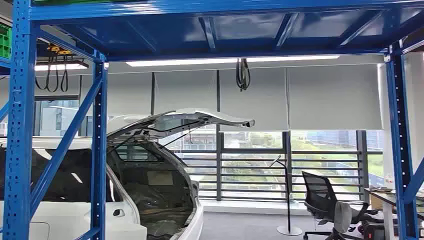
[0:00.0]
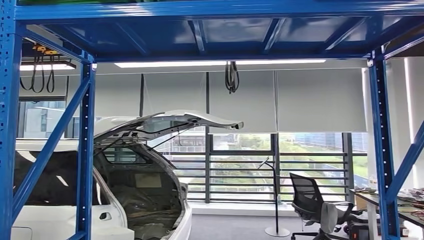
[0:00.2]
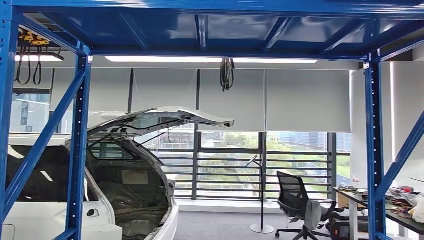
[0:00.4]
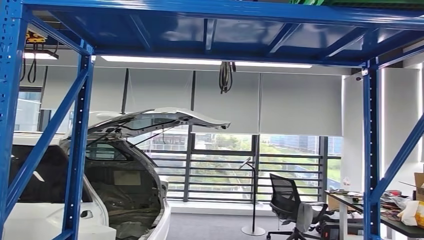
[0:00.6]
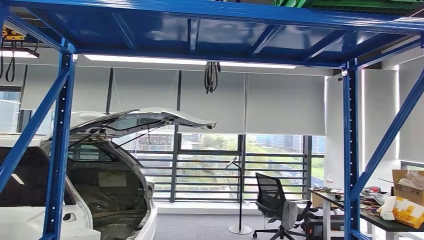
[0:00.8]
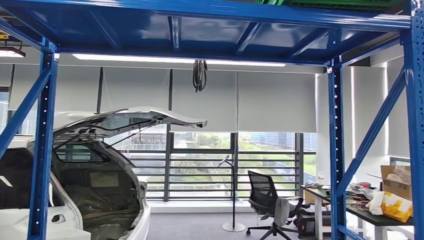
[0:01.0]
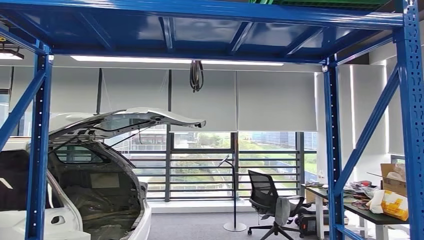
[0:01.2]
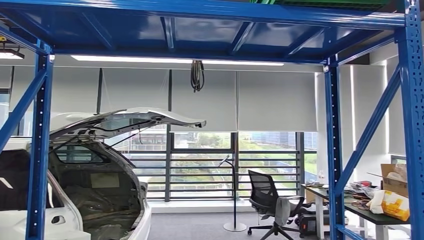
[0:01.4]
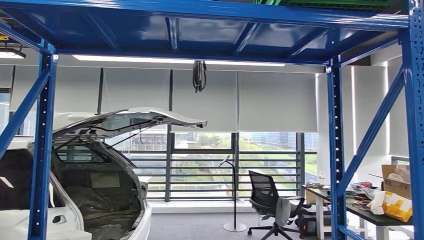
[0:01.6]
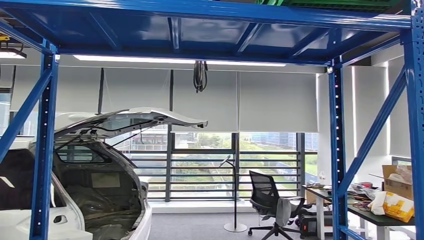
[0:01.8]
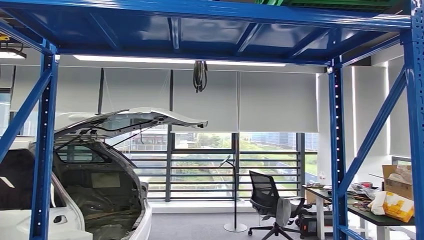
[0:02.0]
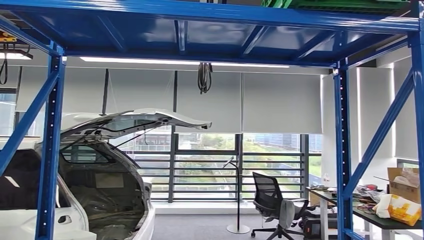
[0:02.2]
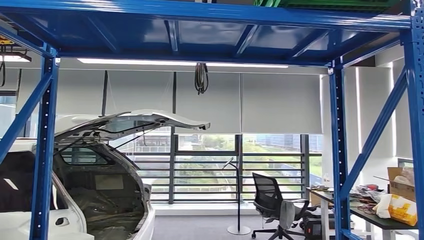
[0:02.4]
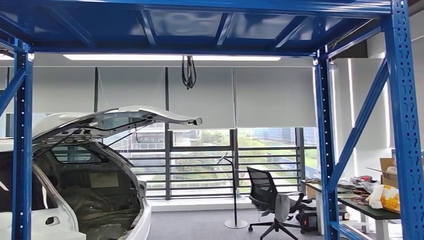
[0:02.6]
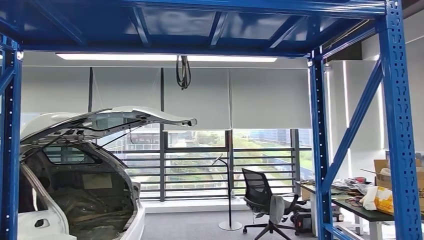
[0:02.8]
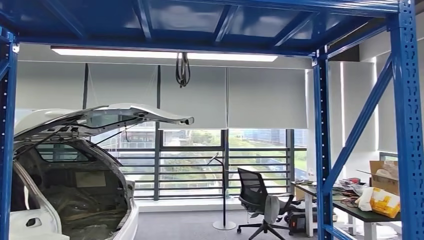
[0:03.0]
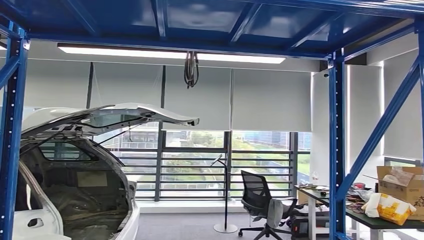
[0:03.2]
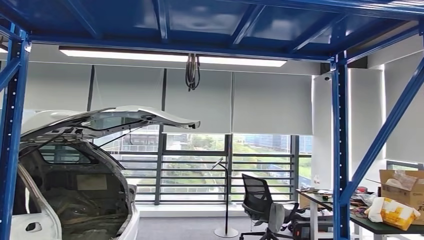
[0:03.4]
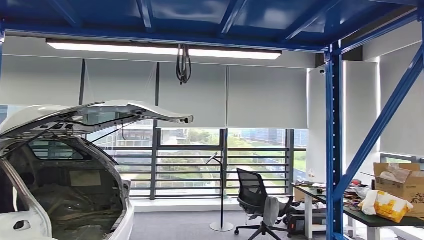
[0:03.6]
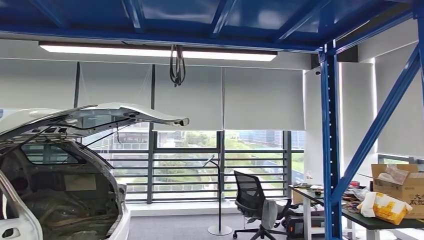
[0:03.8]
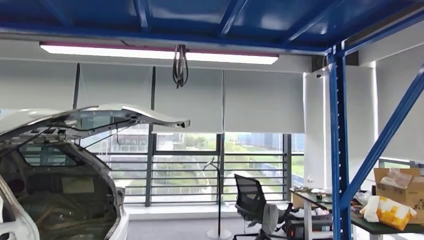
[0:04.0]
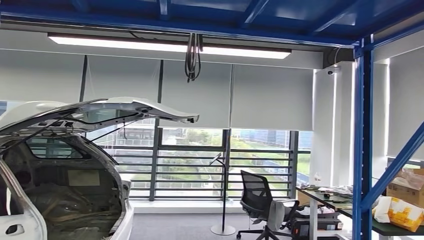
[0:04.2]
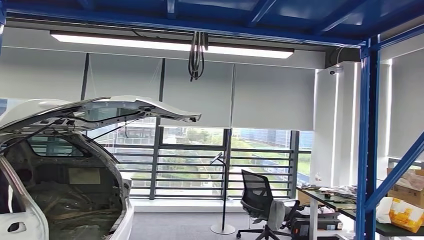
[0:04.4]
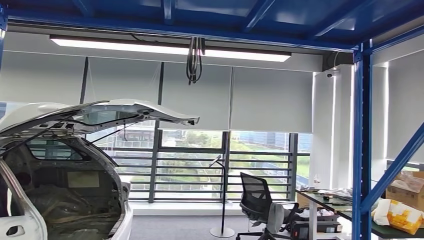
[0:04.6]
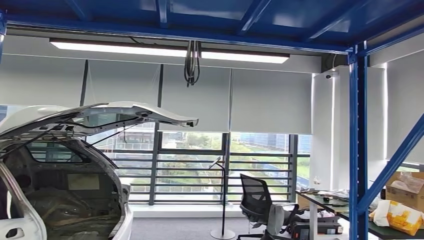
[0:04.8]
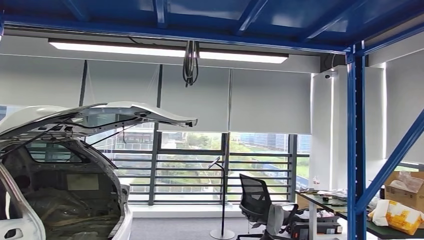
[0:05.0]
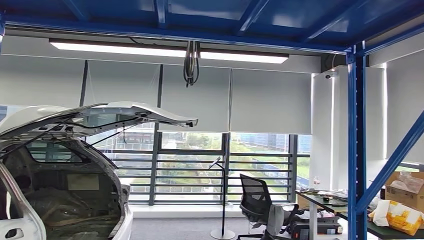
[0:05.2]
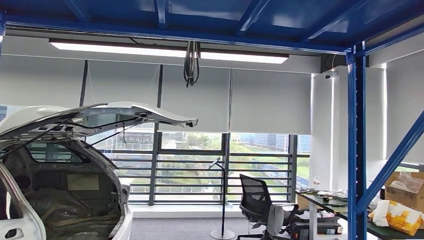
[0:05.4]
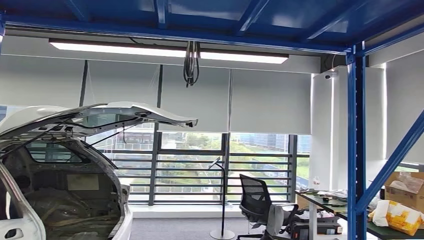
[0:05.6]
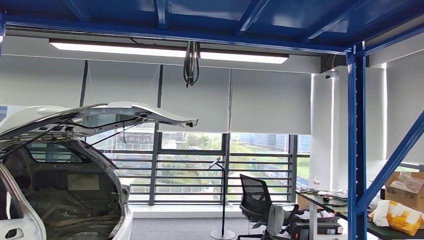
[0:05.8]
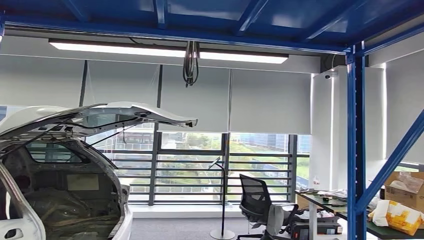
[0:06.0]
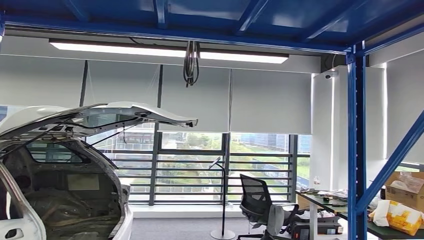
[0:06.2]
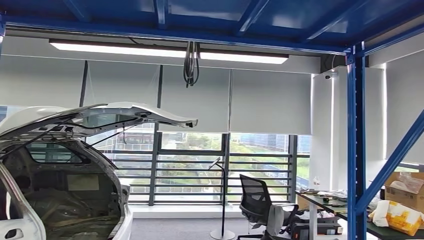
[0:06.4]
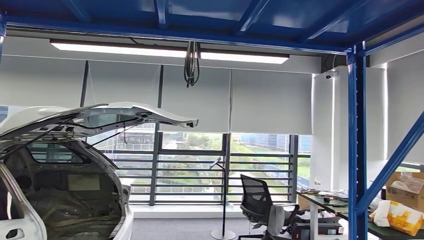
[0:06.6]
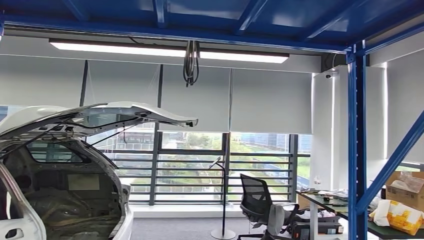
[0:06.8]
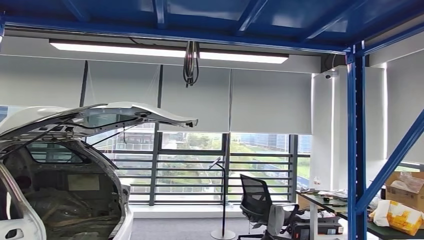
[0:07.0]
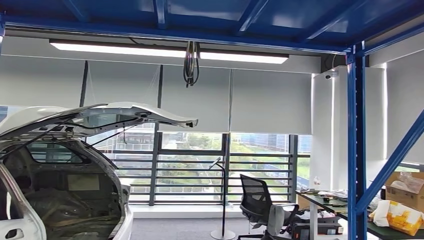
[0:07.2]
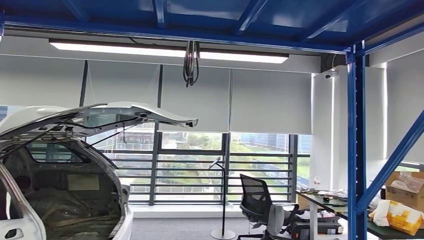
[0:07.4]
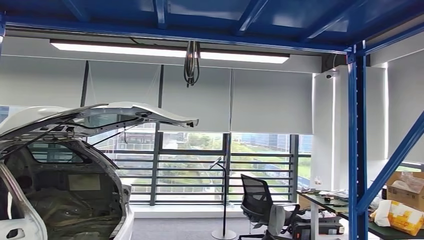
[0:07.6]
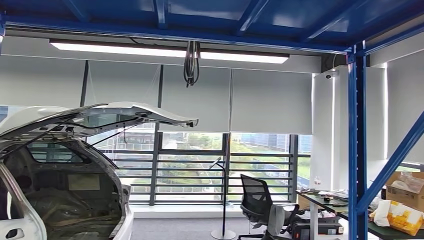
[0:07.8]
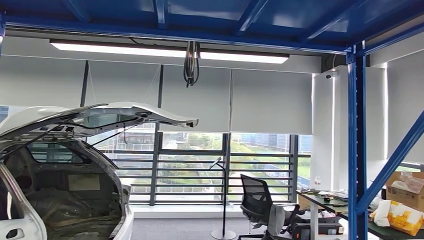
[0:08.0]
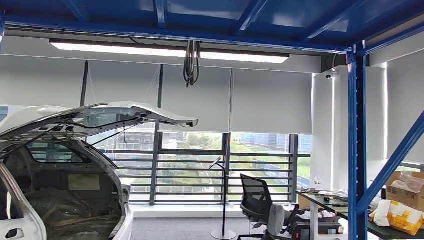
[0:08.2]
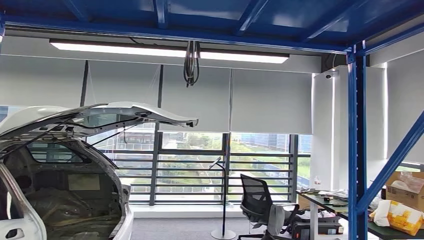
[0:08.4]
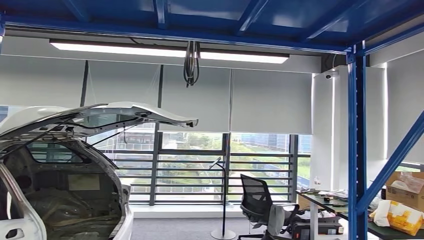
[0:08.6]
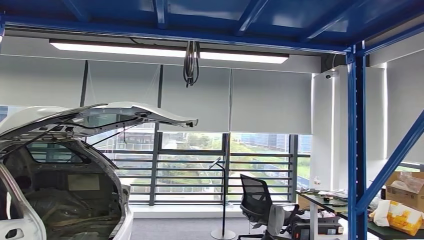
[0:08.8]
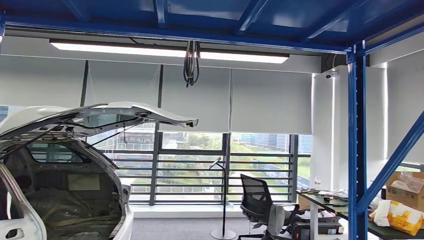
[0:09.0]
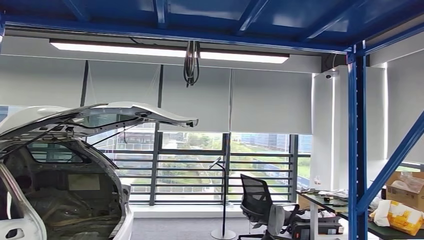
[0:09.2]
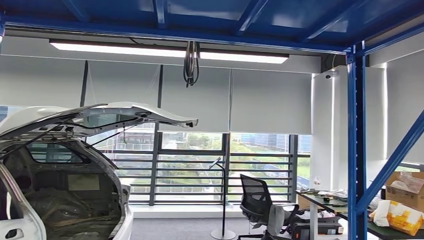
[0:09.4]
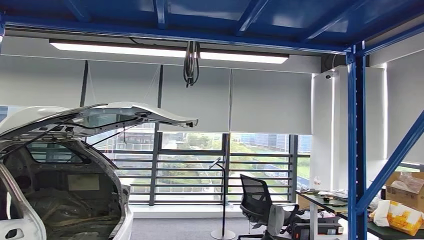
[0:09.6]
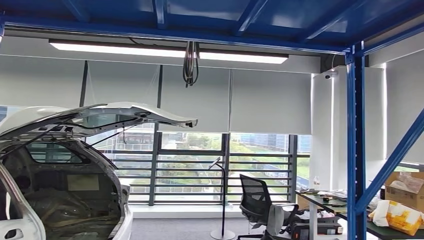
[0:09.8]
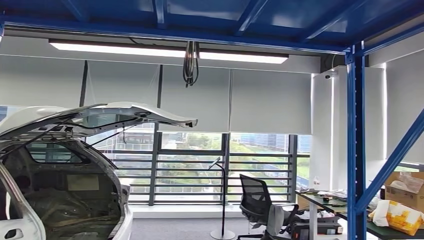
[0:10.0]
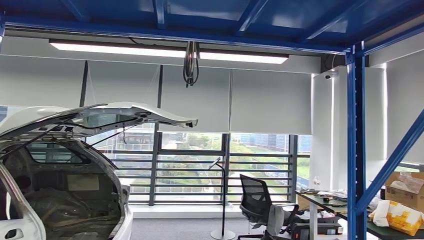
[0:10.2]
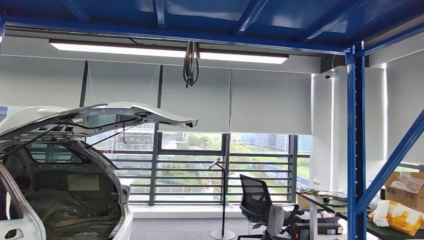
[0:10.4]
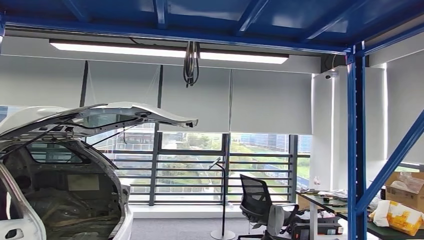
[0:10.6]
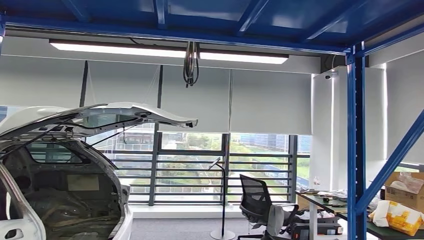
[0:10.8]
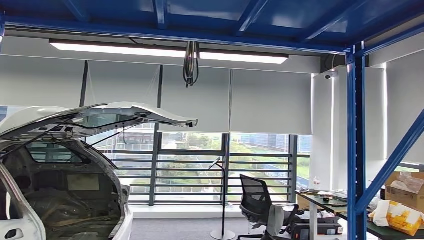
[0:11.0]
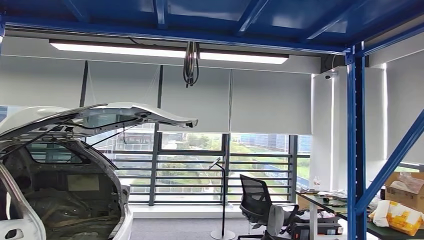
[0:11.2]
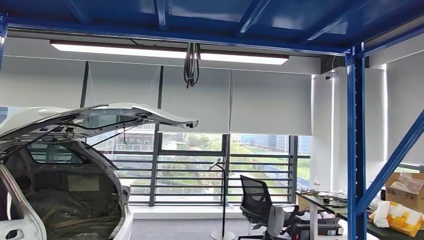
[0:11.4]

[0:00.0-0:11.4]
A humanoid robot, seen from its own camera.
Step, 0:00.0 to 0:11.2: Pick up the small parts from the shelf.
0:05.6 to 0:07.2: The right hand shifts about 15 cm forward.
0:07.2 to 0:08.6: The right hand travels to the left by approximately 10 cm.
0:08.6 to 0:10.0: The right hand heads to the left, covering some 10 cm.
0:10.0 to 0:11.4: The right hand heads to the left, covering about 10 cm.

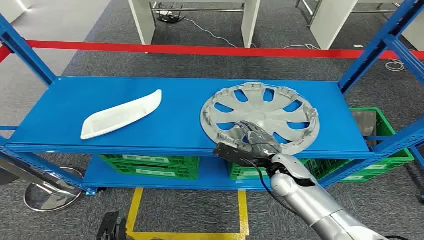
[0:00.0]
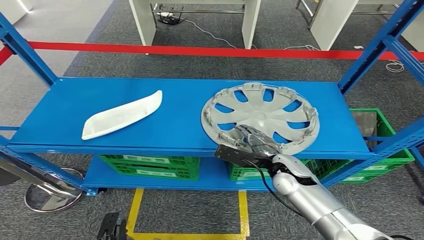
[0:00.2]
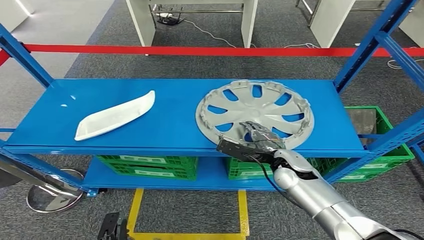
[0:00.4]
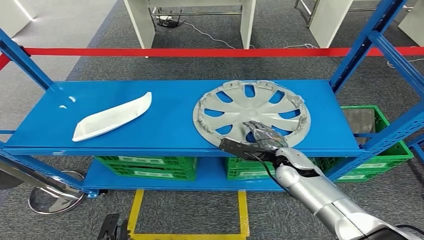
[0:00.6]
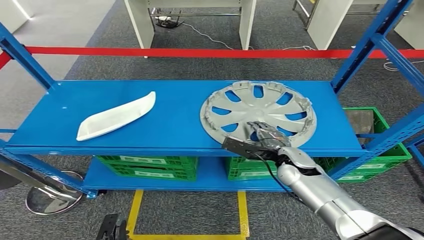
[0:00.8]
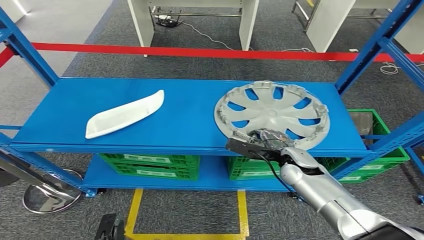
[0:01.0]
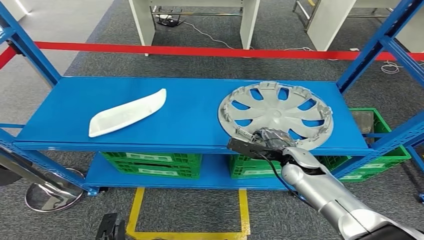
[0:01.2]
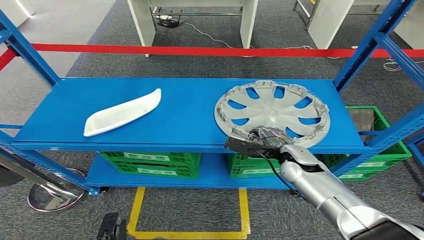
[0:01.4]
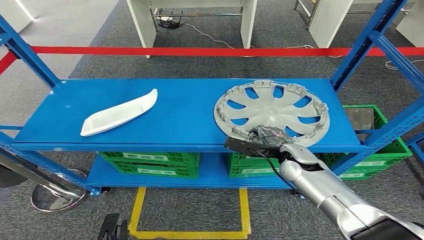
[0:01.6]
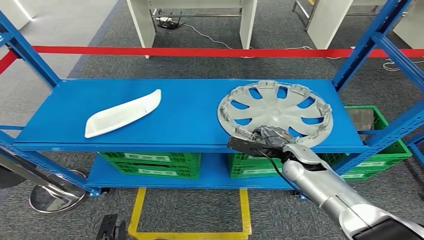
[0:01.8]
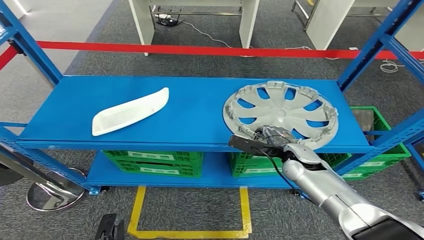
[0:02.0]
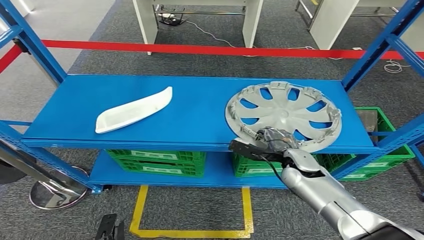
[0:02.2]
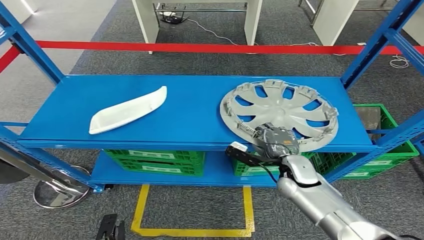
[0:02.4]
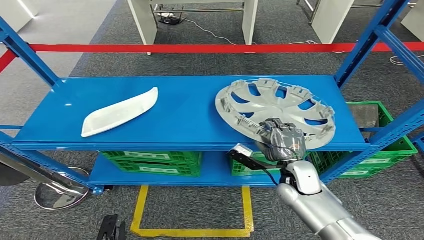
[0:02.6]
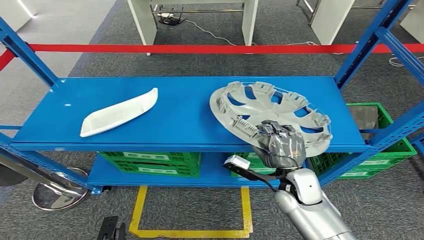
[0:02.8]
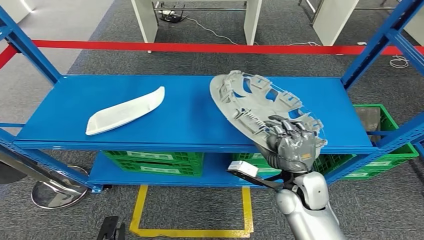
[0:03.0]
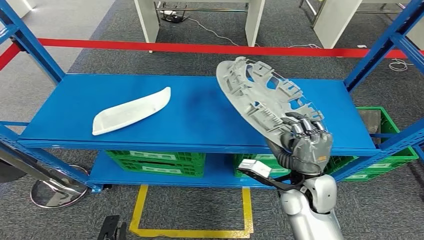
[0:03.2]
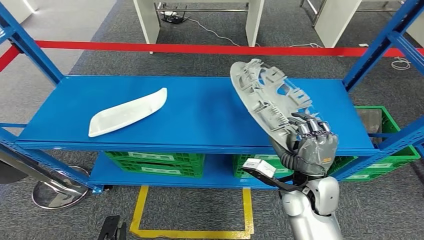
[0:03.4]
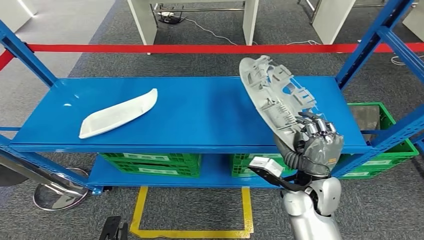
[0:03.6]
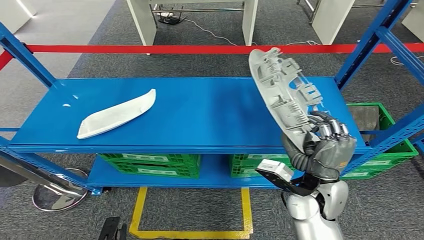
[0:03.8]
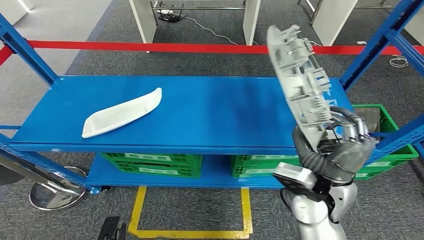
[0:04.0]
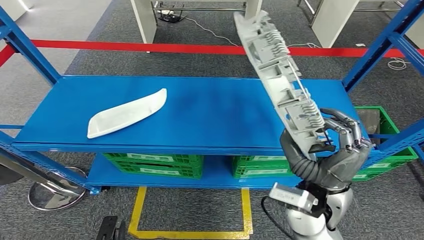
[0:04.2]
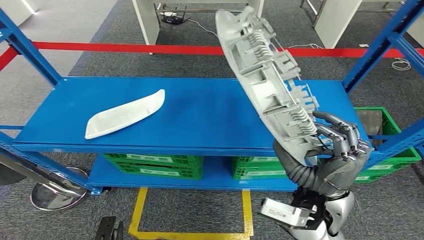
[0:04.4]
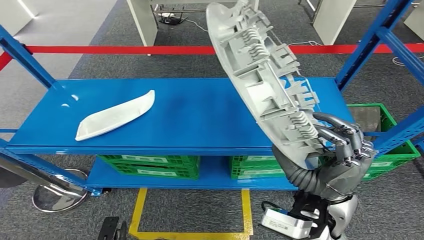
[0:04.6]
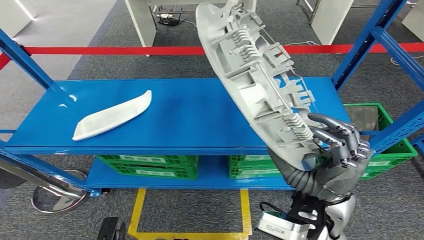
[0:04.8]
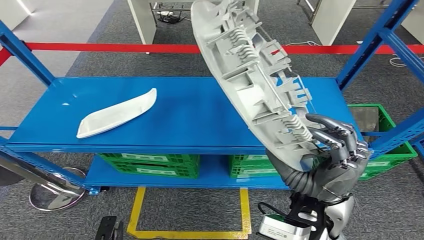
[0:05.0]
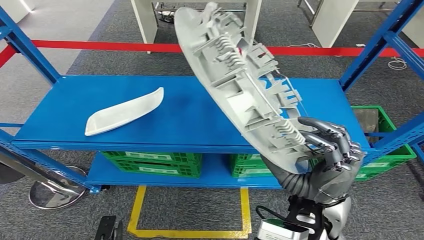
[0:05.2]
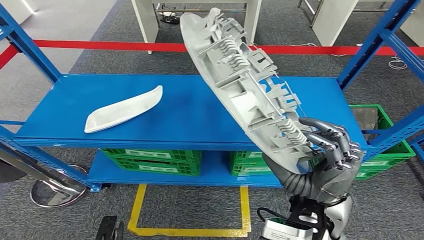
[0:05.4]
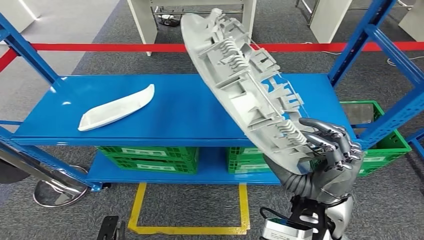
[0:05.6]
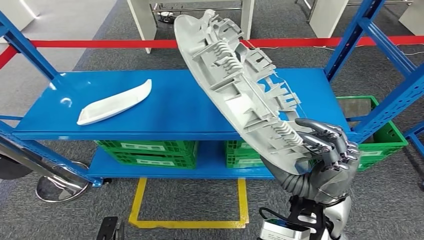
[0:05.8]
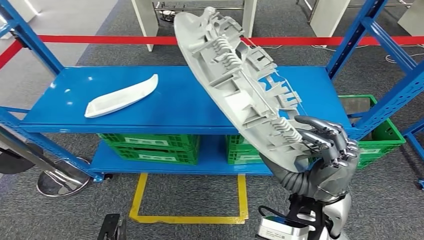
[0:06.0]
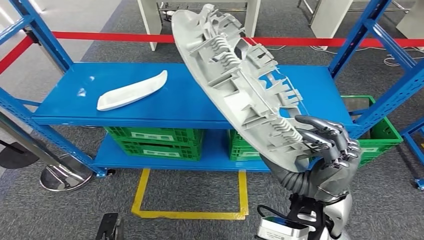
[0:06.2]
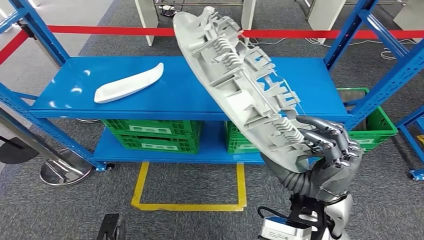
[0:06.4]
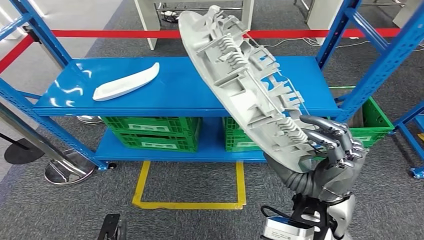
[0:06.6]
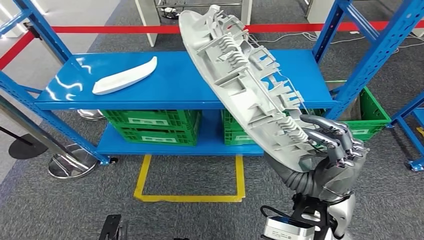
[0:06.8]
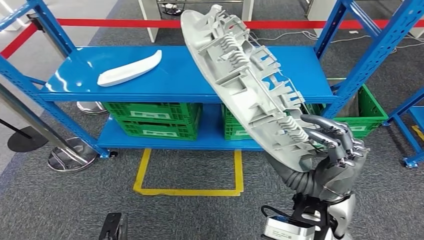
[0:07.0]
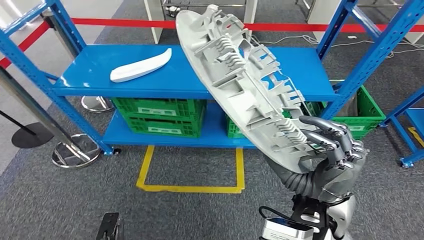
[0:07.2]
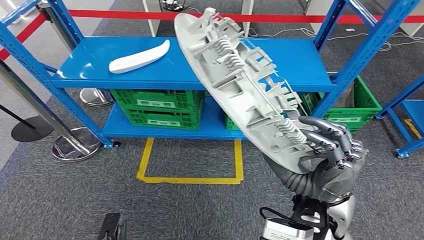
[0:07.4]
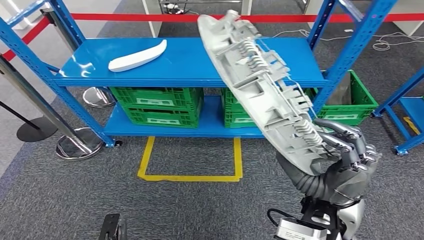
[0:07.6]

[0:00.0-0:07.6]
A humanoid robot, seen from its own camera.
Step, 0:00.0 to 0:04.2: Pick up the small parts from the shelf.
